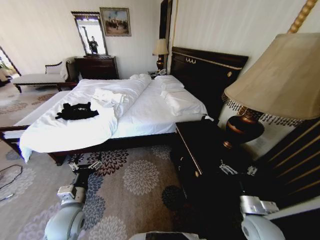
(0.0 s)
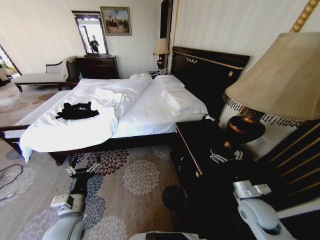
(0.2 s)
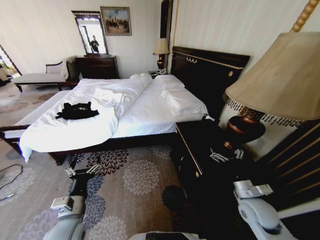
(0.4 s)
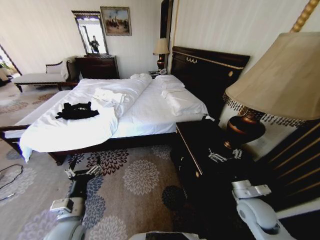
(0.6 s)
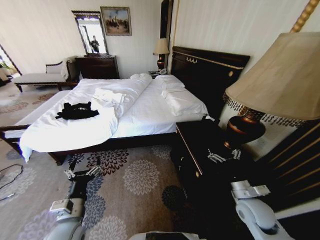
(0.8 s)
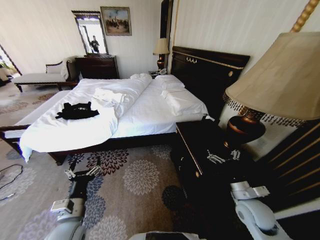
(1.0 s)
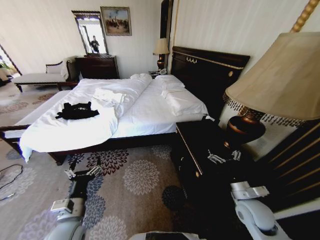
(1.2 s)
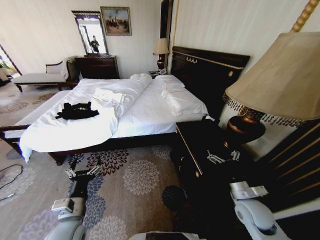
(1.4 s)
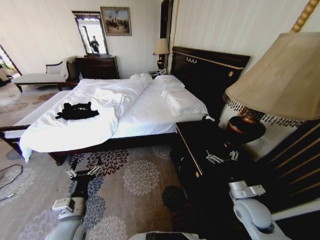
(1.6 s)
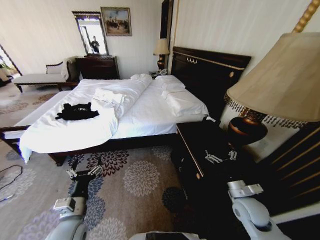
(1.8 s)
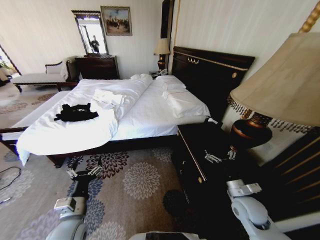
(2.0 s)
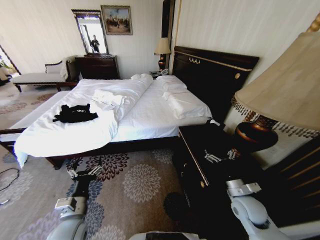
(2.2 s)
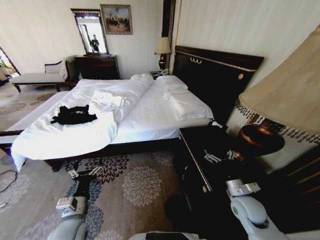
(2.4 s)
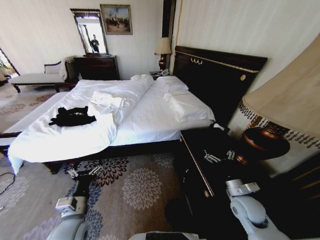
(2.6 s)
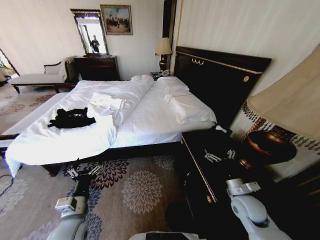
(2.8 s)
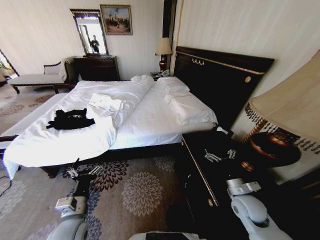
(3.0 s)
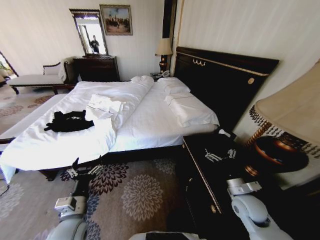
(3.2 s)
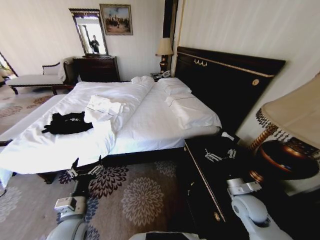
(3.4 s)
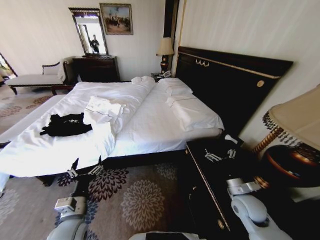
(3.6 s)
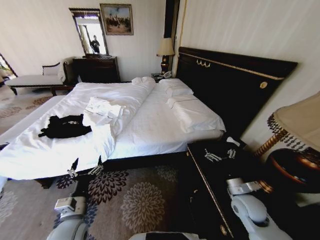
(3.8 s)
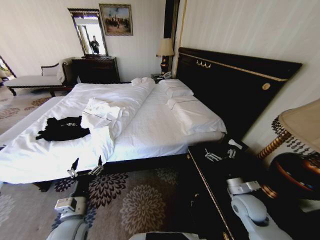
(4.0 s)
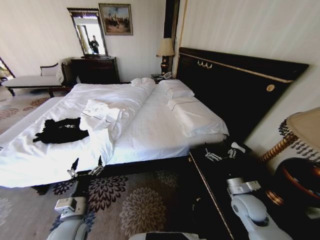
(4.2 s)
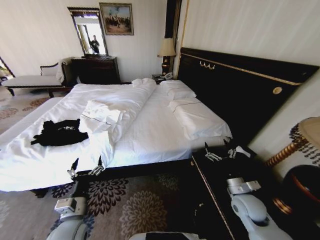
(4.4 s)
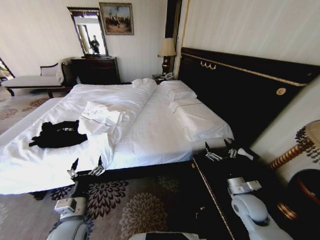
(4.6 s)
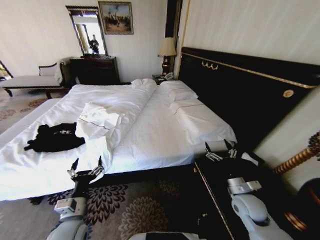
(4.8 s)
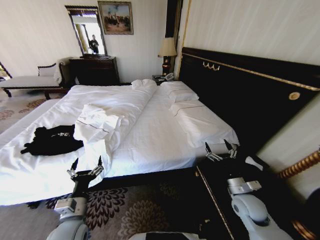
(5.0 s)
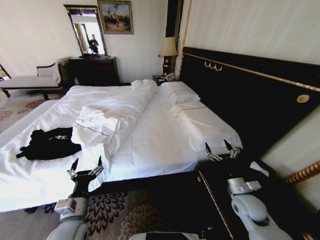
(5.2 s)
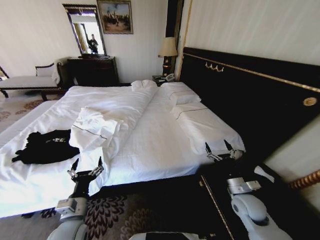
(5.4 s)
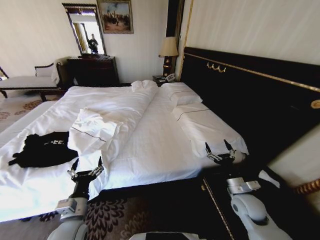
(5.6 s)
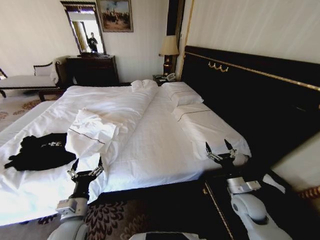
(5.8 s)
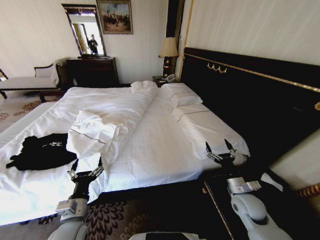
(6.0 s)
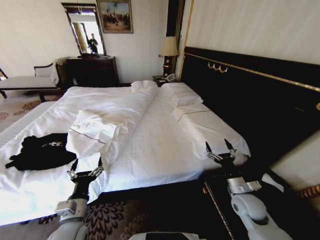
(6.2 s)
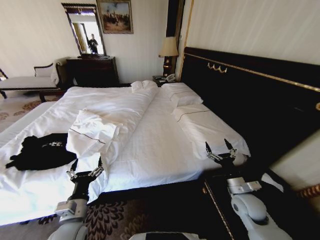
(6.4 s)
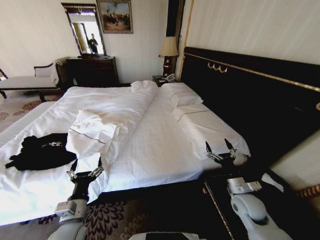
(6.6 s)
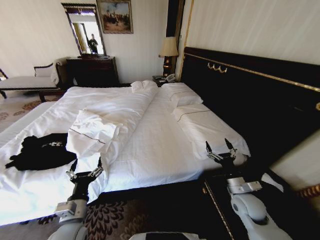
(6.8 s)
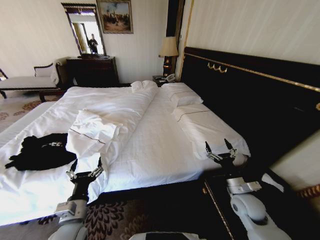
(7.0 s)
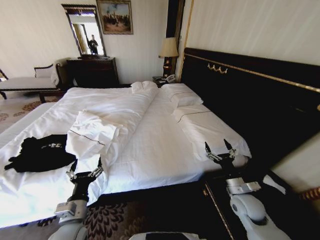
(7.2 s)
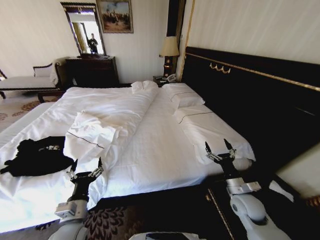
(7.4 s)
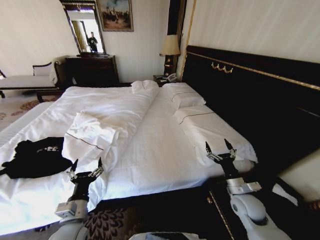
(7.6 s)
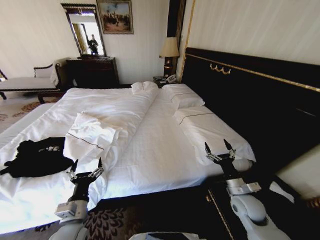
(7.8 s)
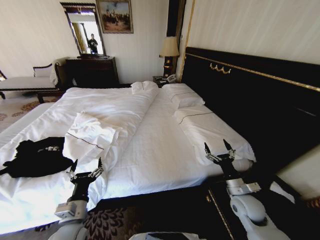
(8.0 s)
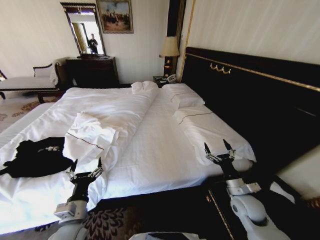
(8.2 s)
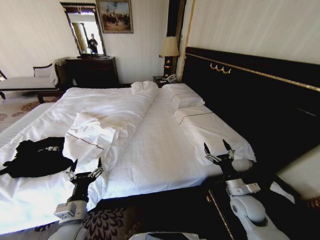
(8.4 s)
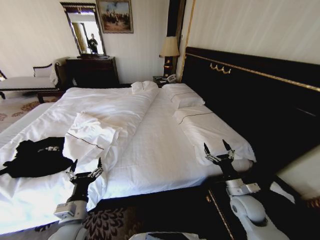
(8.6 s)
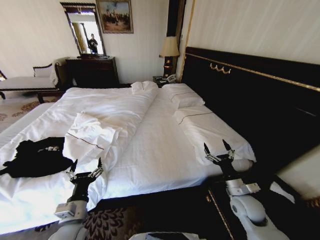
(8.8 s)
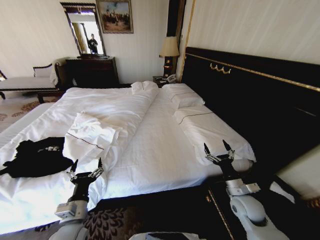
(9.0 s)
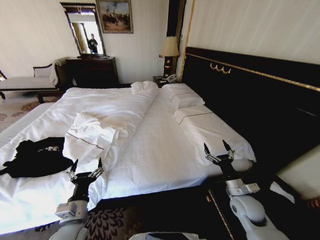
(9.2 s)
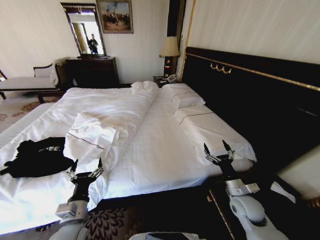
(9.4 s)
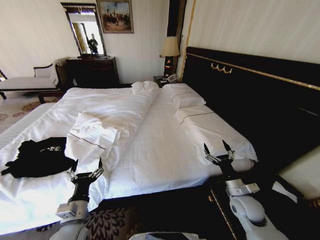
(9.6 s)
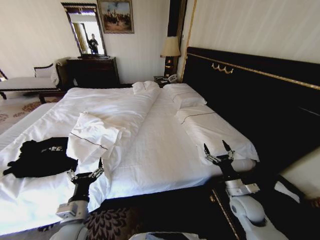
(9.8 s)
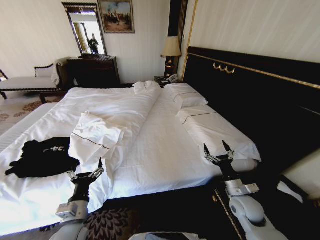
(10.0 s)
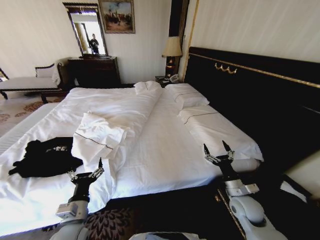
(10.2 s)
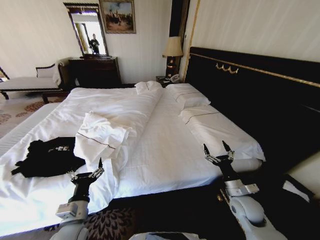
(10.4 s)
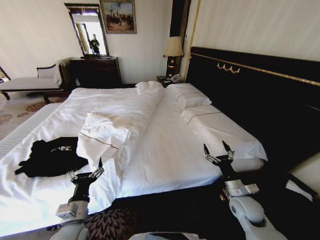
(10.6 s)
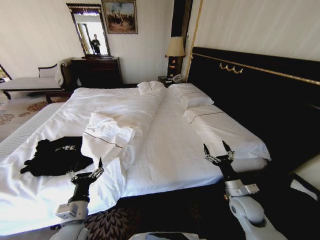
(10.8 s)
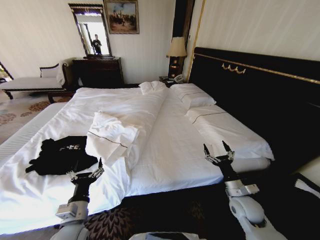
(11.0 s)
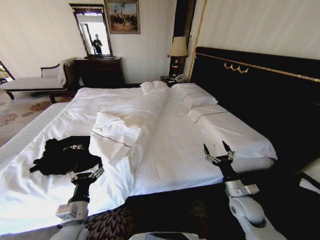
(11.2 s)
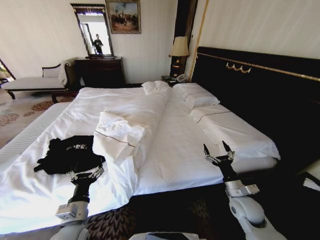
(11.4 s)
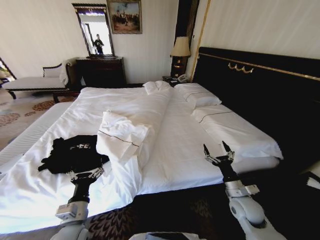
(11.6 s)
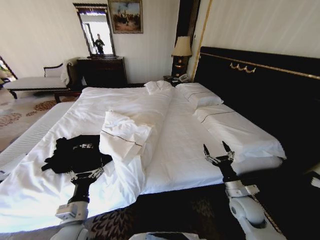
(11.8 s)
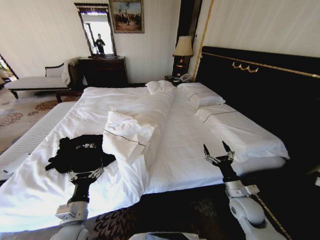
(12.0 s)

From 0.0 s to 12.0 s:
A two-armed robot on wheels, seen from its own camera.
Task of the whole recording: Fold the clothes on the bed.
From 7.6 s to 10.4 s: Neither gripper changes place.

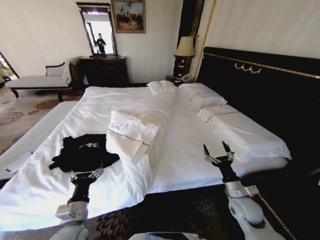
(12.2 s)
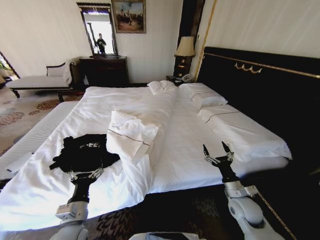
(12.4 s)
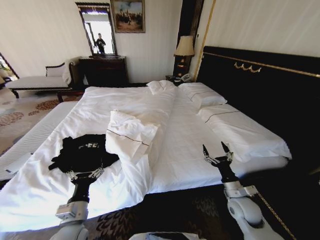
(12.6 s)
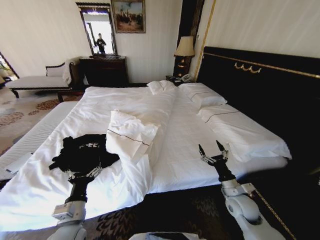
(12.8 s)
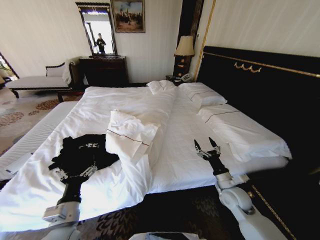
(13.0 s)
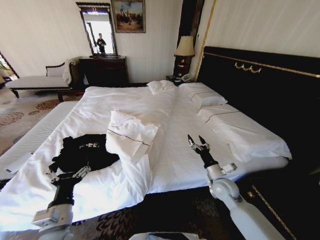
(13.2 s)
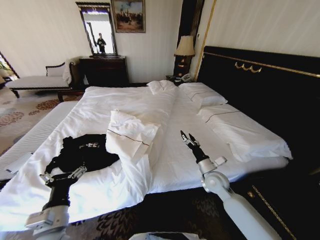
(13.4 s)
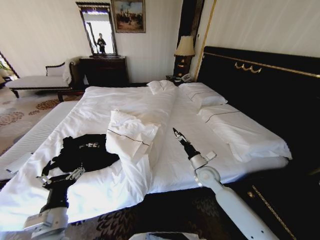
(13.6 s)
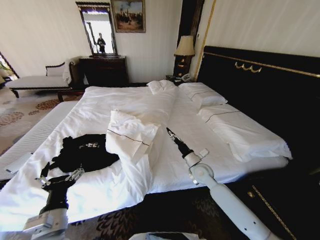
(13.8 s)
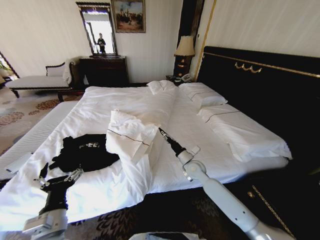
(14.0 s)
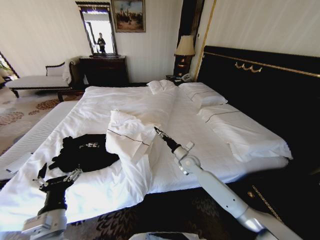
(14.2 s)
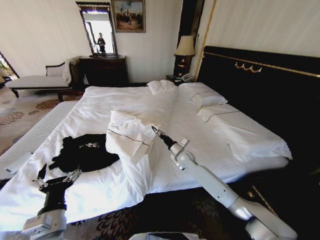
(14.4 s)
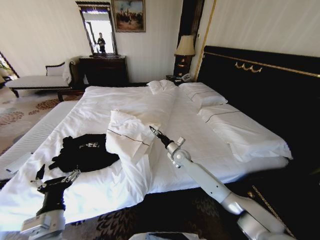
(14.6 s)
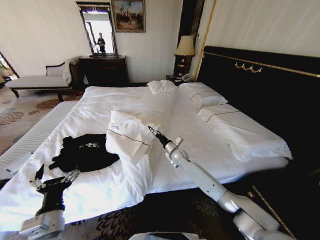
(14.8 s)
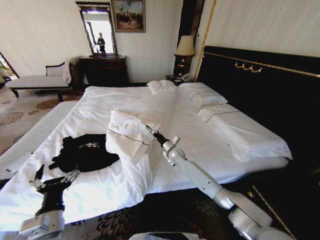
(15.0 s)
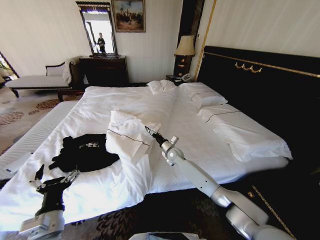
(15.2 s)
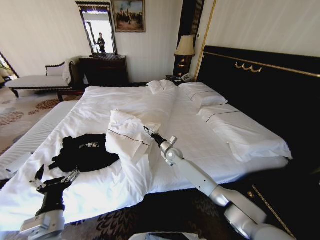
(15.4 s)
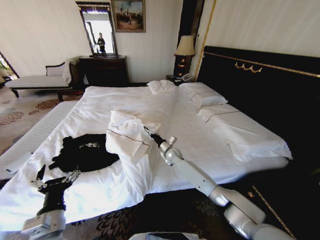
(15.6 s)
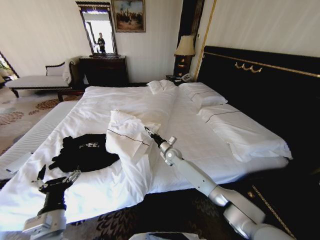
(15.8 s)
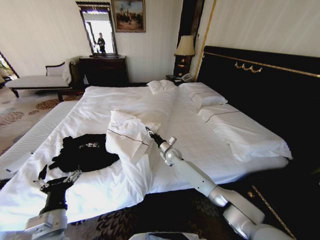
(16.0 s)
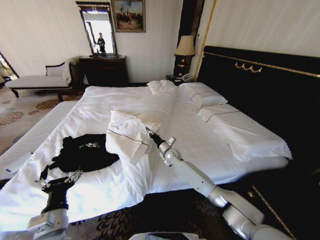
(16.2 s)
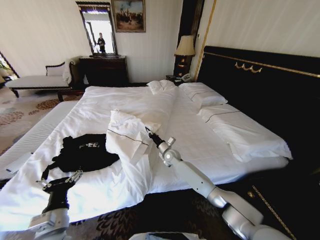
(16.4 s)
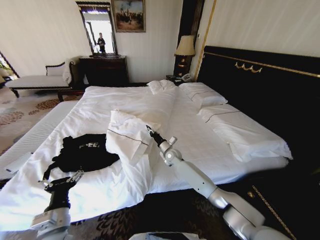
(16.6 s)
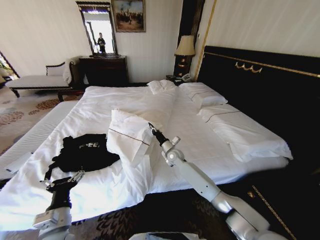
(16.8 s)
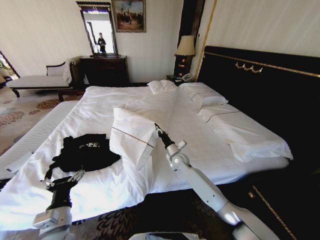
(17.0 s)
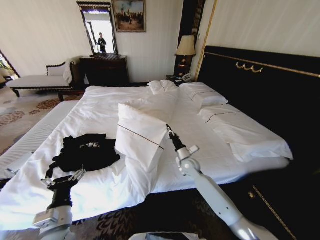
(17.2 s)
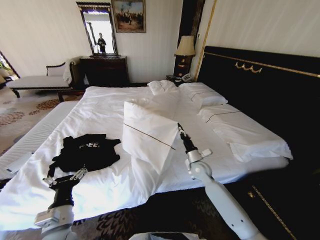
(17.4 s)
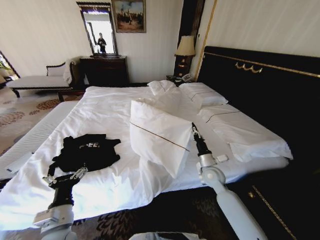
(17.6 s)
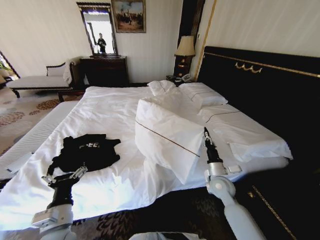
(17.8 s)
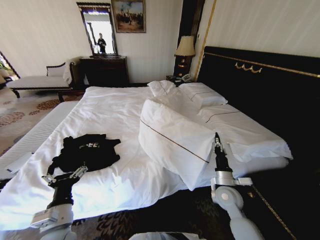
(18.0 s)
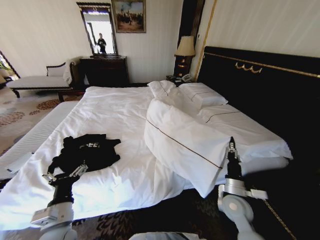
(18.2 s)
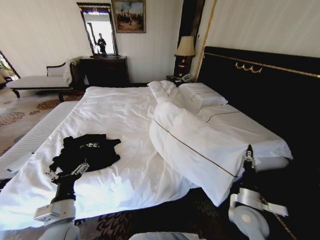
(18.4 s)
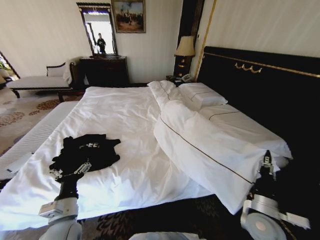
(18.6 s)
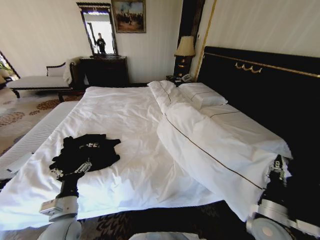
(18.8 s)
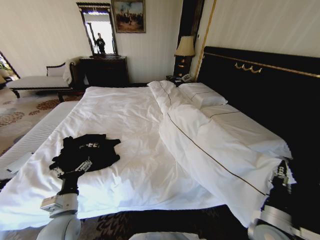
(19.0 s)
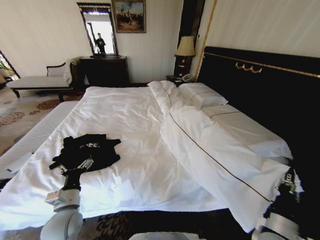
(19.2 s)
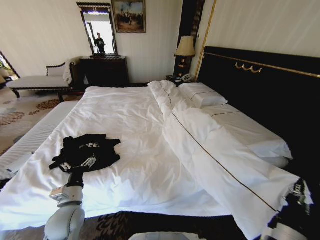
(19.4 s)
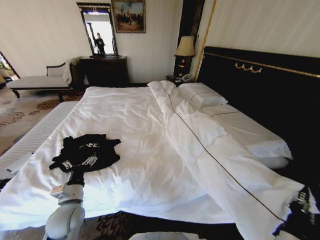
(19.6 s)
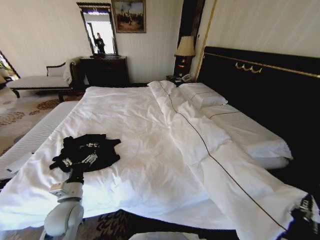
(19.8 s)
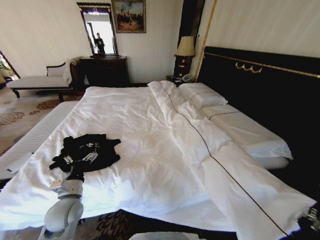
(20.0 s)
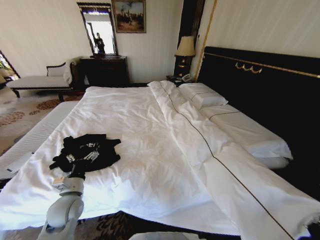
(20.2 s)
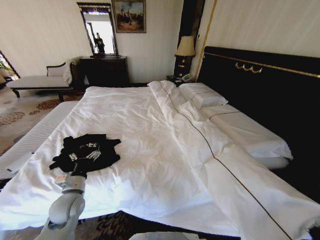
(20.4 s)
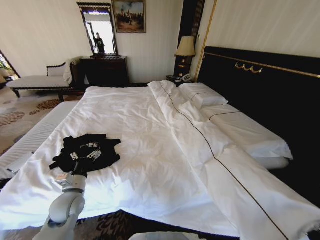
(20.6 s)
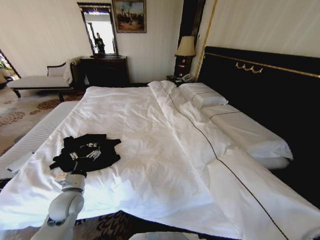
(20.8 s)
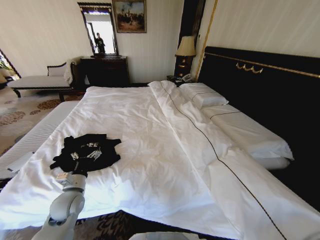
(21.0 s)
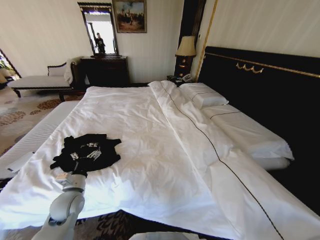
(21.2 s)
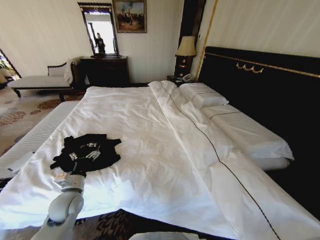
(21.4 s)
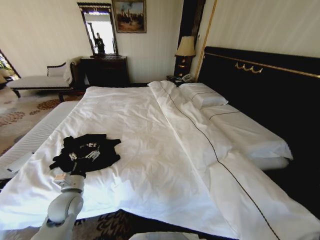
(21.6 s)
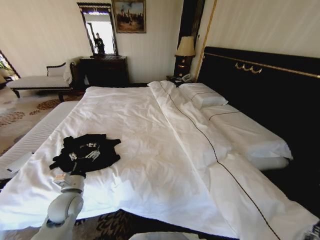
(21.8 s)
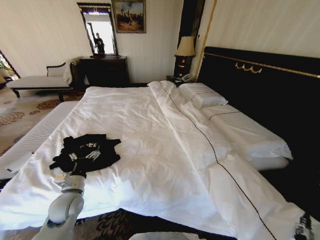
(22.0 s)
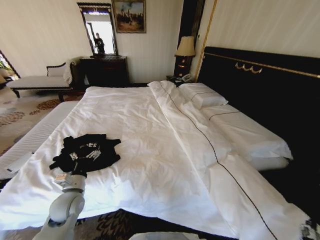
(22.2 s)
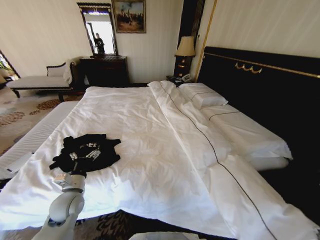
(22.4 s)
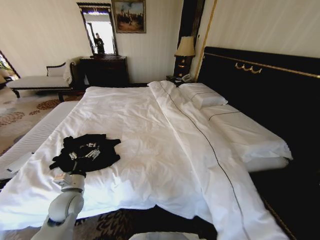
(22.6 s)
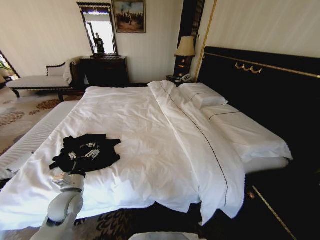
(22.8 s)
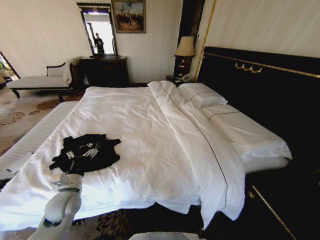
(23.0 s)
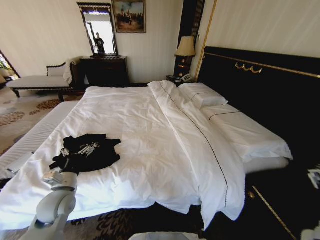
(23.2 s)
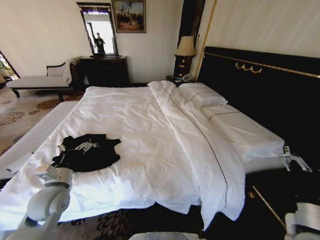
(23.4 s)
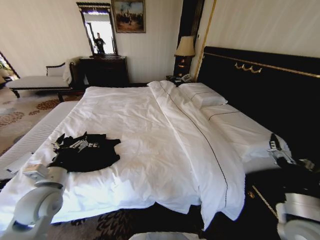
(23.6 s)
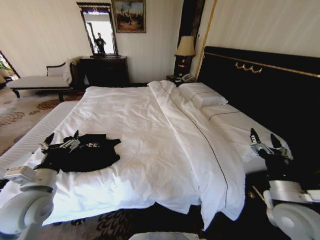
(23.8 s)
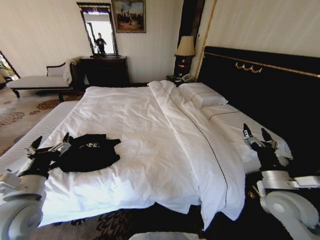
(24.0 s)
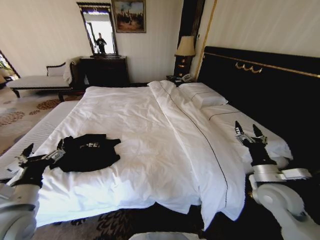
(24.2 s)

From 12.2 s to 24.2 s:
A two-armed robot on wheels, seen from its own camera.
Task of the whole recording: Fold the clothes on the bed.
From 12.2 s to 13.8 s: The left gripper changes place by roughly 5 cm, while the right gripper heads forward and to the left, covering about 20 cm.
From 13.8 s to 15.2 s: The right gripper heads forward and to the left, covering about 15 cm.
From 15.2 s to 16.6 s: The right gripper closes up.
From 16.6 s to 18.2 s: The right gripper heads backward and to the right, covering roughly 35 cm.
From 18.2 s to 19.8 s: The left gripper travels forward by some 5 cm. The right gripper goes roughly 15 cm backward.
From 19.8 s to 21.2 s: The right gripper heads backward, covering some 10 cm.
From 21.2 s to 22.6 s: The right gripper travels upward by approximately 15 cm, and opens its fingers.
From 22.6 s to 24.2 s: The left gripper goes approximately 15 cm upward and backward; the right gripper is displaced forward by some 20 cm.
